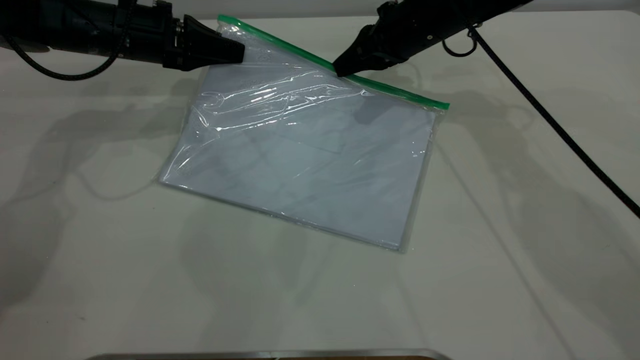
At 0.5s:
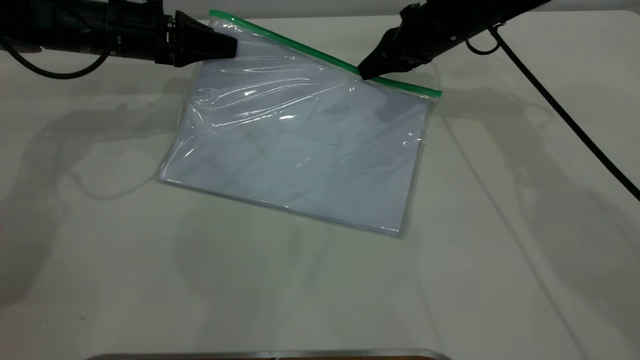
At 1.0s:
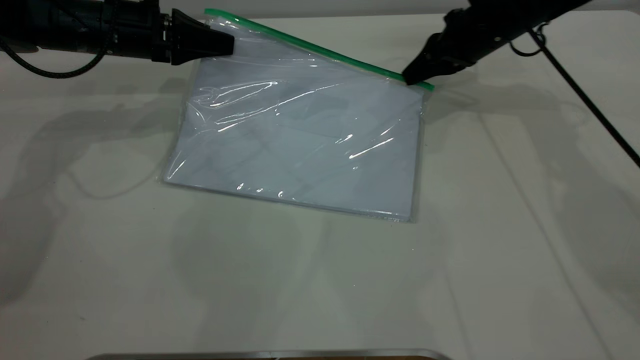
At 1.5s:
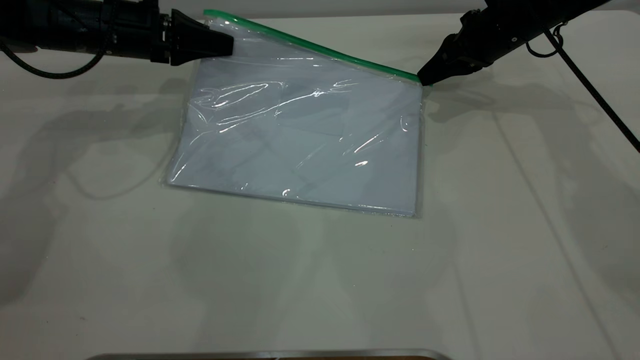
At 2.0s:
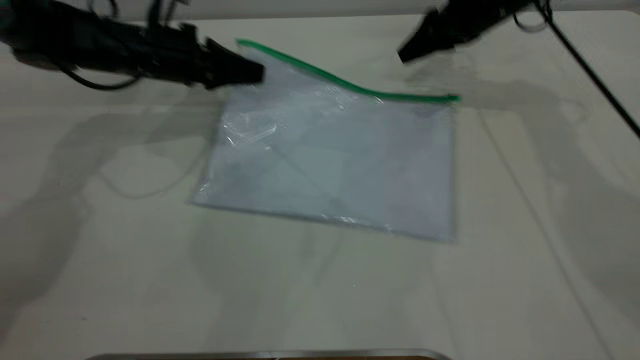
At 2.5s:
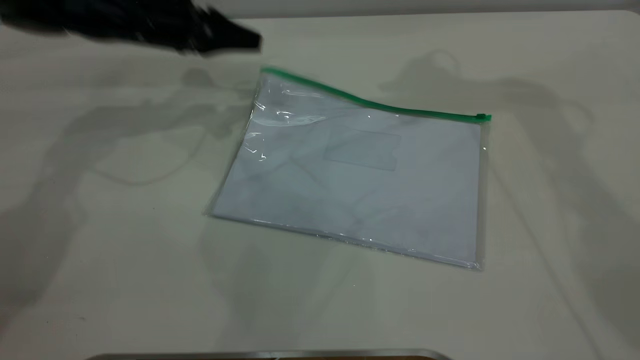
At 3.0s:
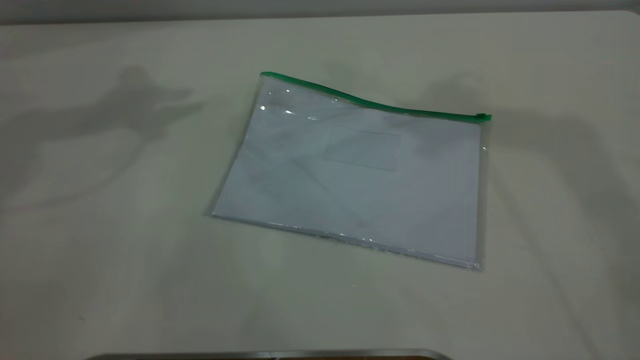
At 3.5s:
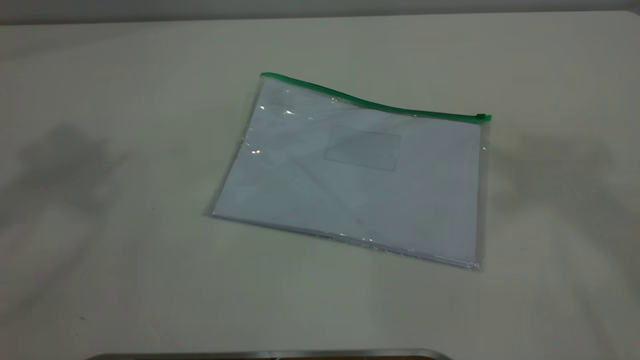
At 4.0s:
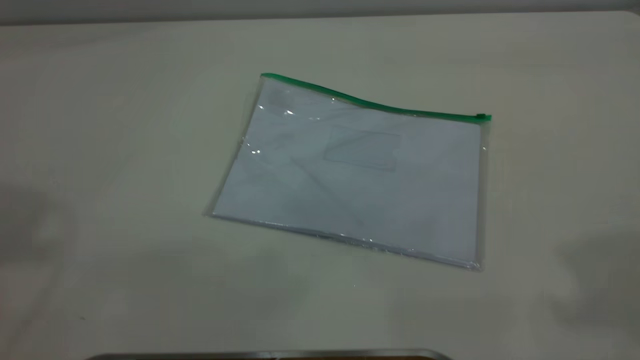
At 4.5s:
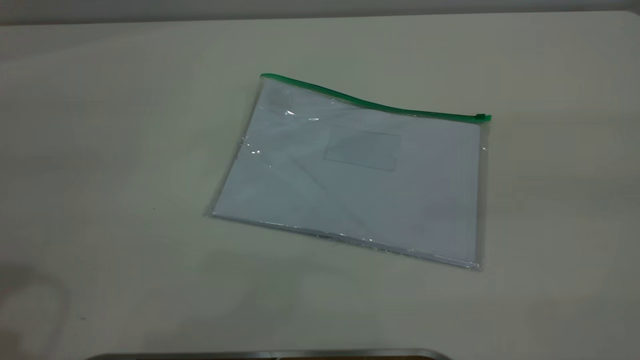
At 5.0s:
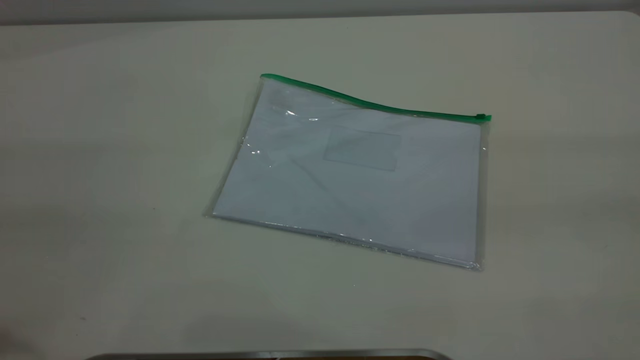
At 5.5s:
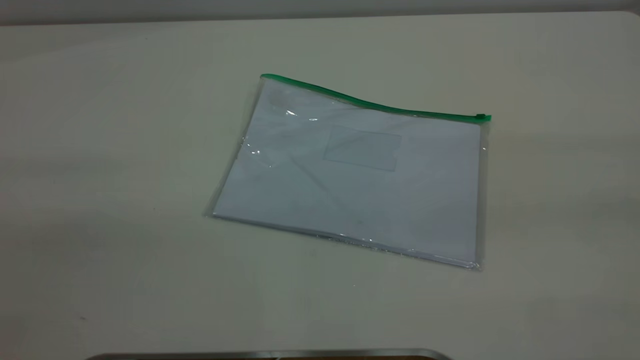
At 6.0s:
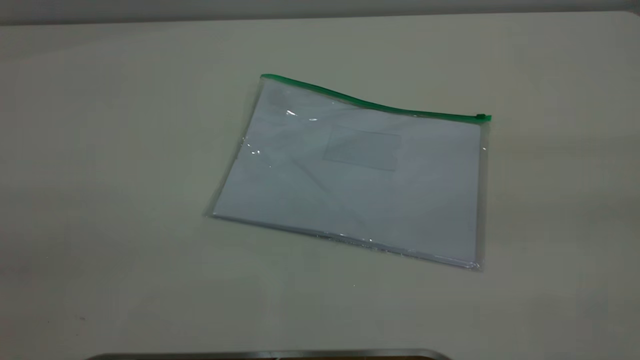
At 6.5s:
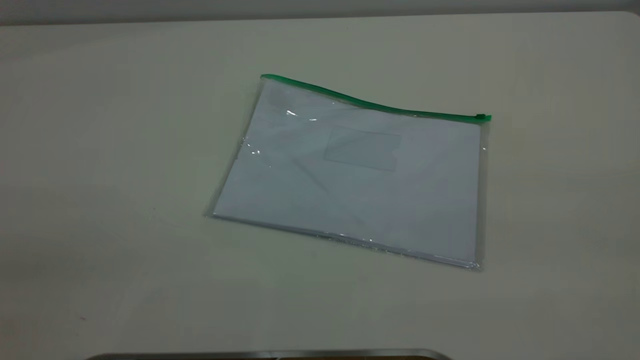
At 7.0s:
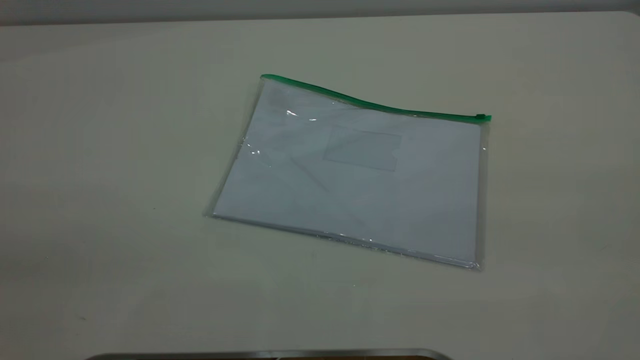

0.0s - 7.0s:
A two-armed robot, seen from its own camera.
0.0s - 2.0s: The right gripper heads to the right, covering some 5 cm, and opens its fingers.
2.0s - 3.5s: The left gripper heads upward, covering roughly 50 cm, and opens its fingers. The right gripper is displaced upward and backward by roughly 50 cm.

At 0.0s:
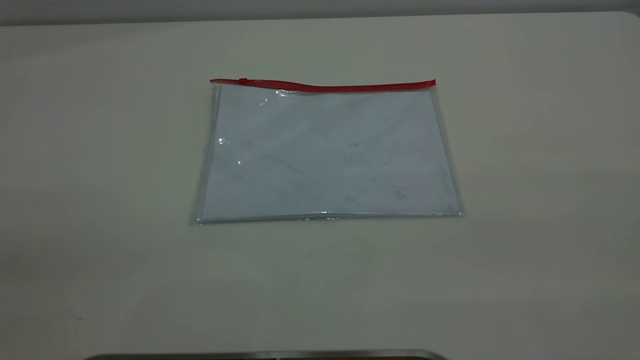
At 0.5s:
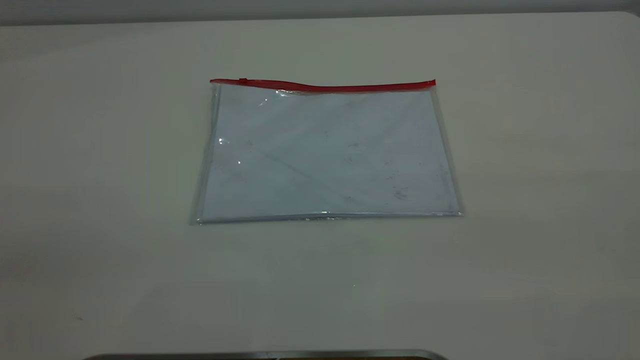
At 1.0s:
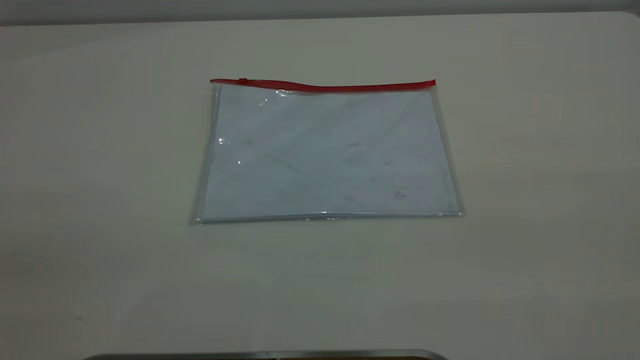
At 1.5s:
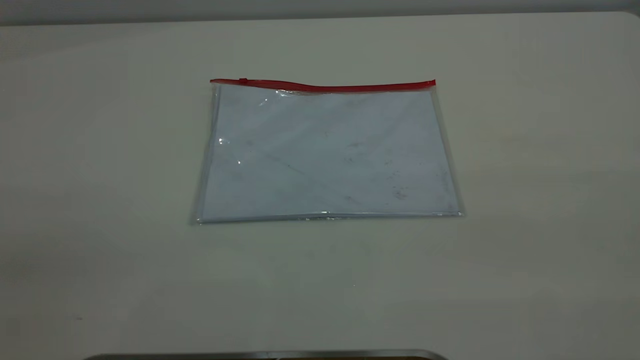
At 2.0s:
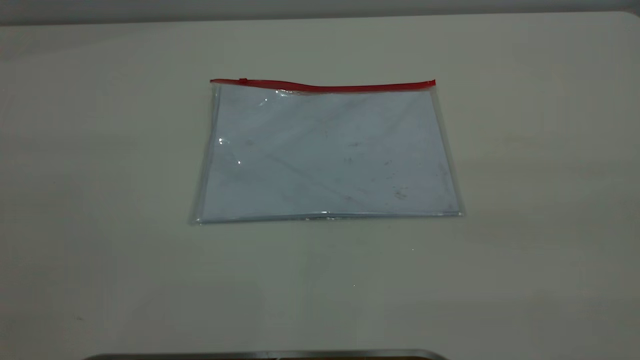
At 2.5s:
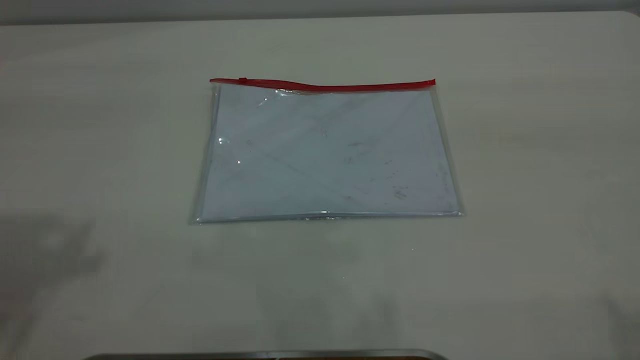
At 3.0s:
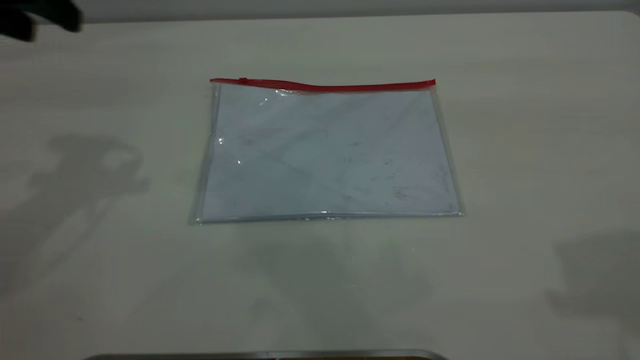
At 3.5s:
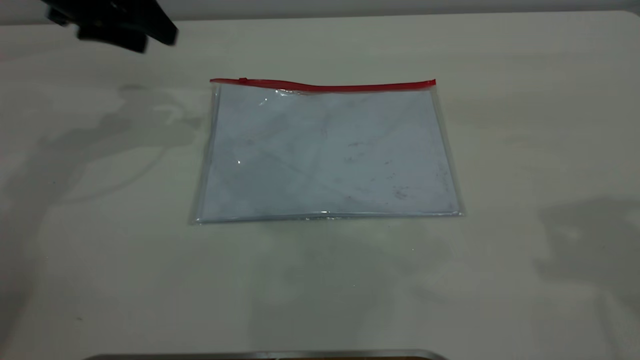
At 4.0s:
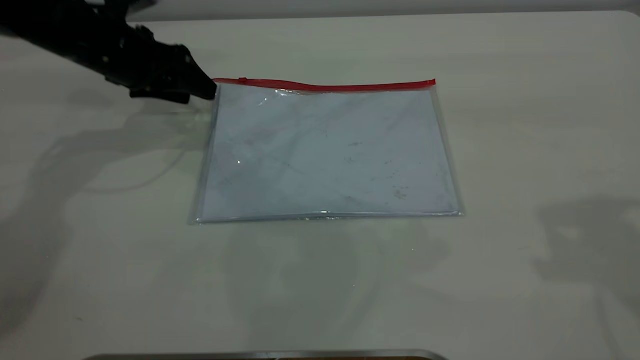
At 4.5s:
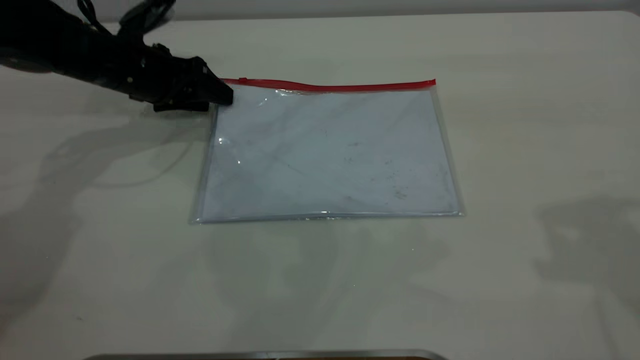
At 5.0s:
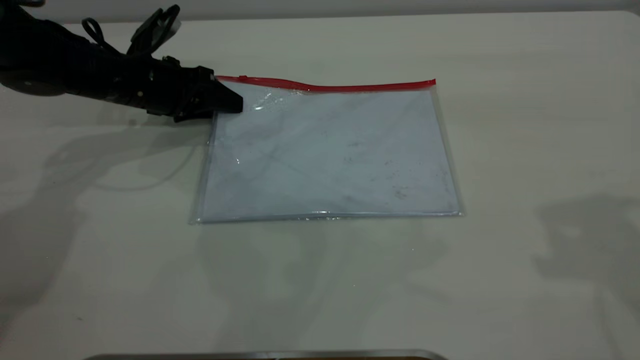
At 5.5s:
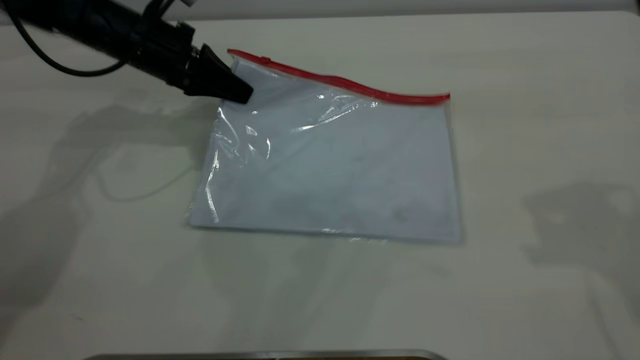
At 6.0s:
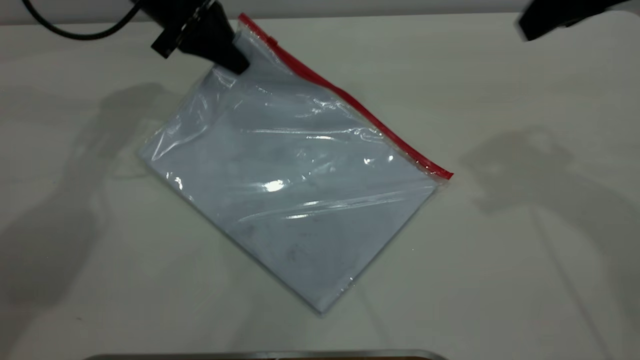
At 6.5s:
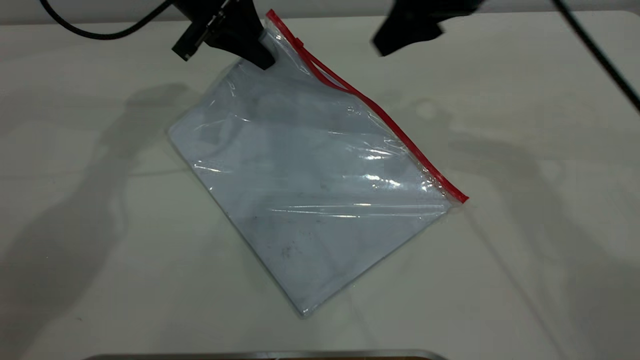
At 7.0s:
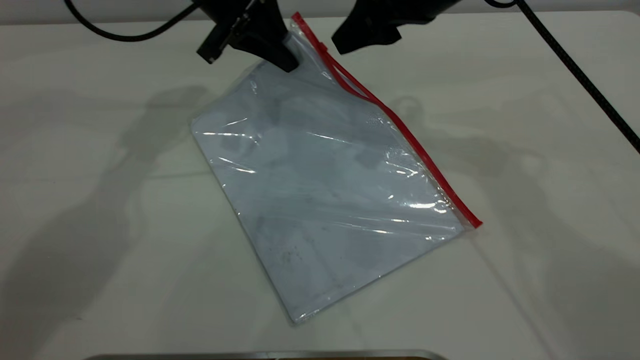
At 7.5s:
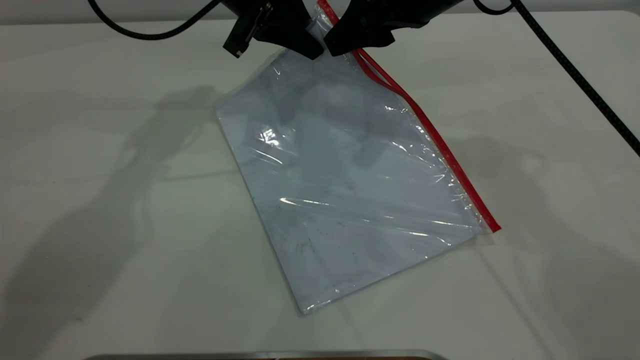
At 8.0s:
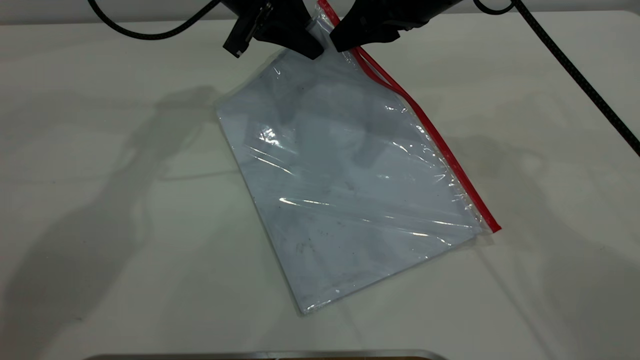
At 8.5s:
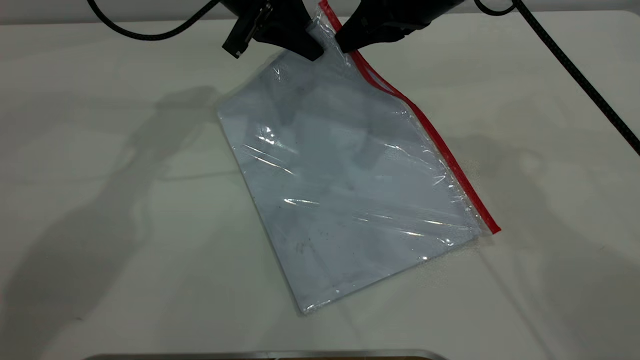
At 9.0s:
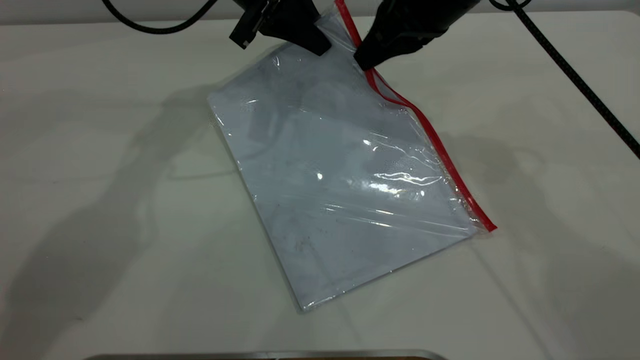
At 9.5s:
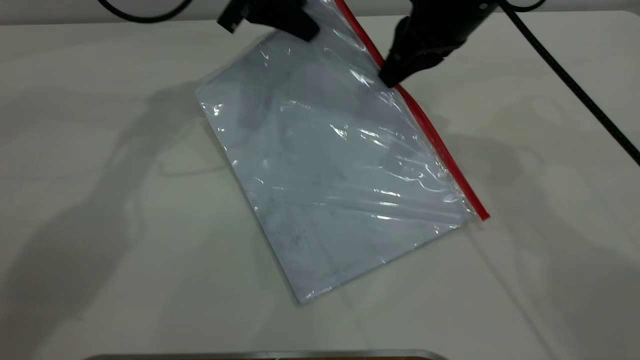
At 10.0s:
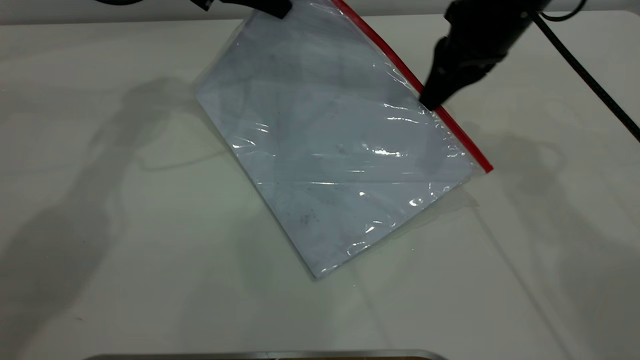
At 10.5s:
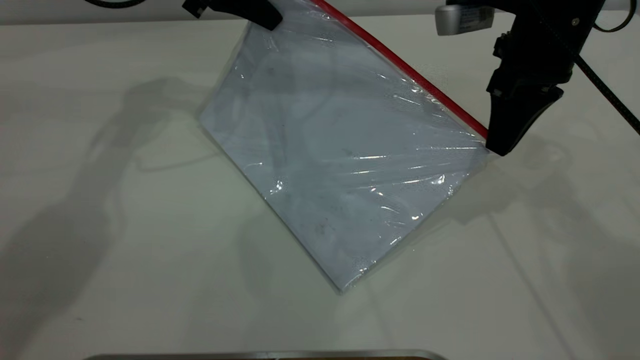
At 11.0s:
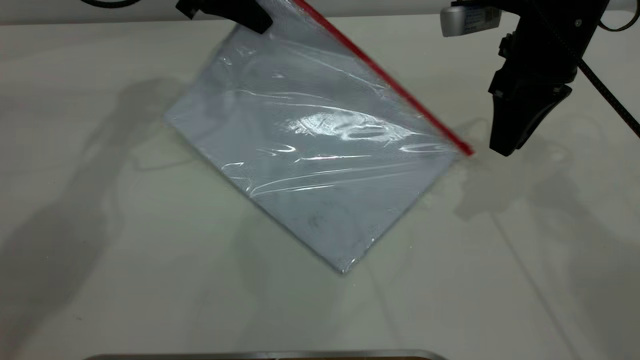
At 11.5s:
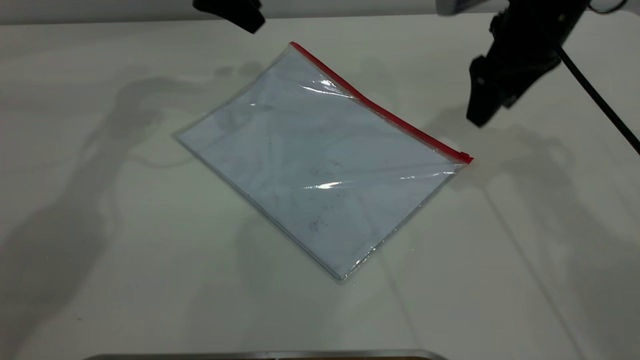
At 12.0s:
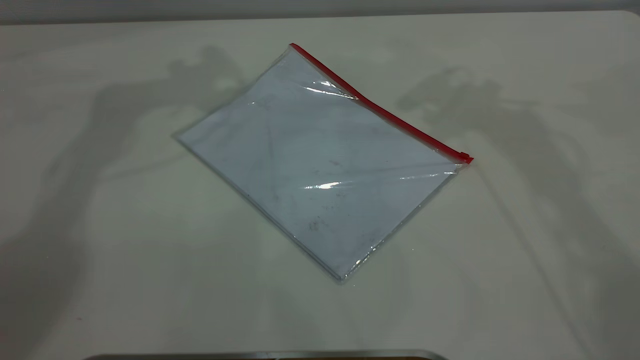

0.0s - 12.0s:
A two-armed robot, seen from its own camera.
Step, 0.0s - 5.0s: Pick up the transparent plastic bag with the left gripper.
Step, 5.5s - 11.0s: Pulling up the zipper on the transparent plastic bag with the right gripper to close it.
2.0s - 4.0s: The left gripper moves forward and downward, about 50 cm.
4.0s - 6.0s: The right gripper heads forward and downward, covering some 15 cm; the left gripper is displaced to the right, upward and forward by some 10 cm, and closes.
6.0s - 8.0s: The left gripper heads to the right, covering some 10 cm. The right gripper shifts roughly 15 cm to the left, downward and forward, and closes its fingers.
8.0s - 10.0s: The left gripper moves approximately 5 cm; the right gripper heads to the right, covering approximately 5 cm, and closes.
10.0s - 12.0s: The two grippers go roughly 20 cm upward. The left gripper opens up, while the right gripper opens up.
